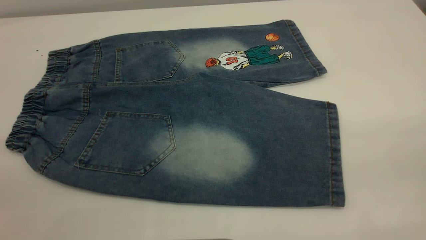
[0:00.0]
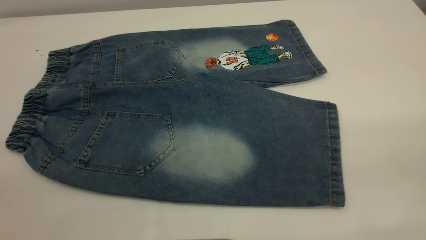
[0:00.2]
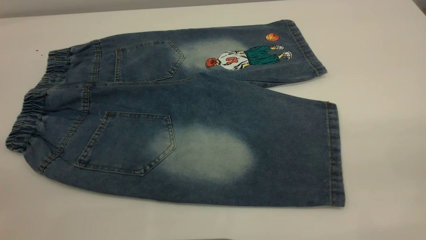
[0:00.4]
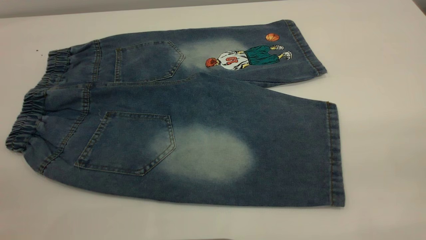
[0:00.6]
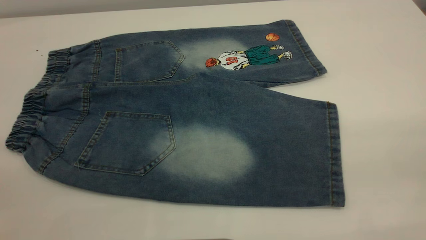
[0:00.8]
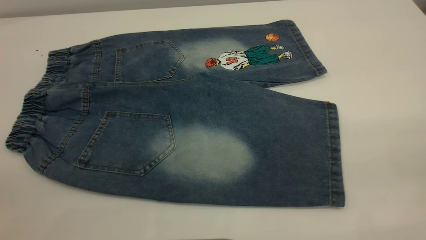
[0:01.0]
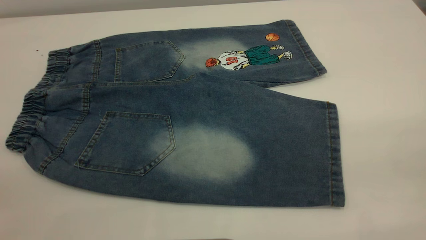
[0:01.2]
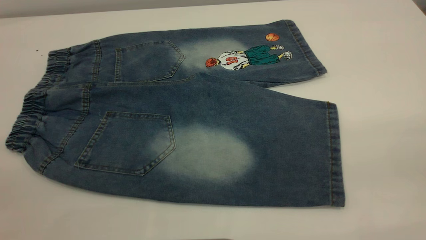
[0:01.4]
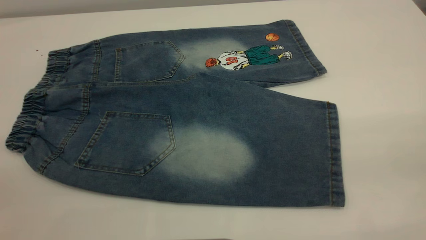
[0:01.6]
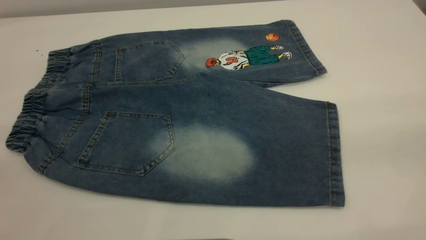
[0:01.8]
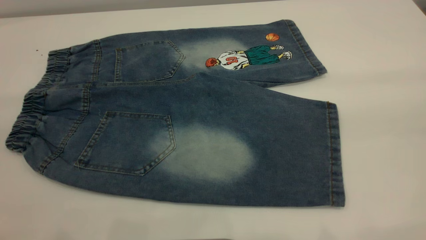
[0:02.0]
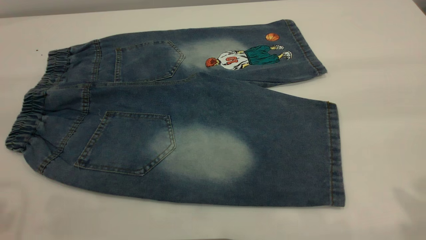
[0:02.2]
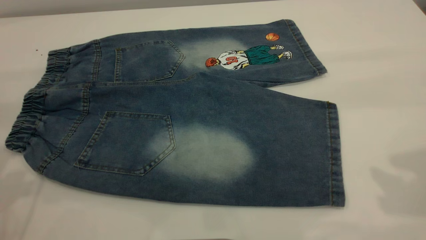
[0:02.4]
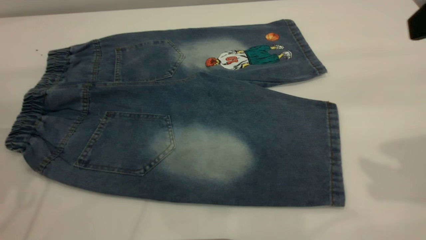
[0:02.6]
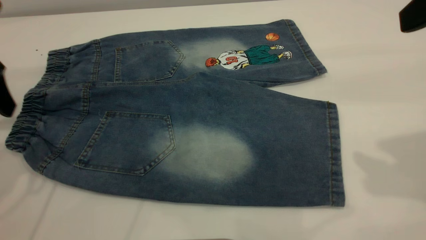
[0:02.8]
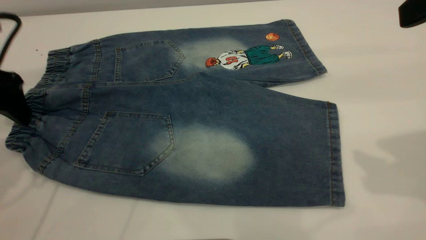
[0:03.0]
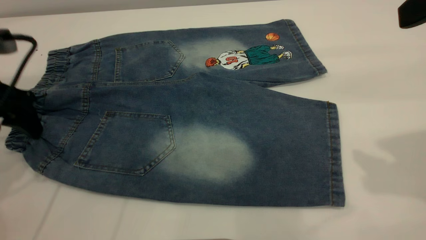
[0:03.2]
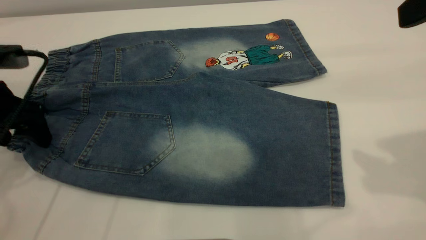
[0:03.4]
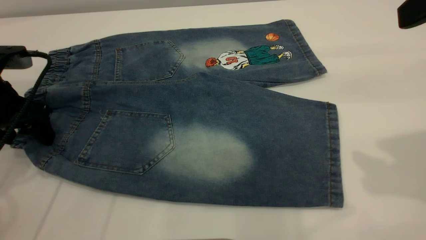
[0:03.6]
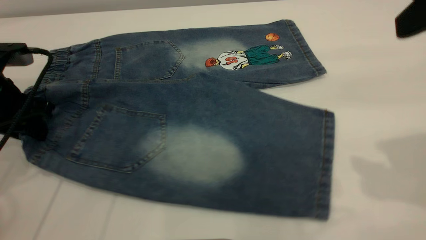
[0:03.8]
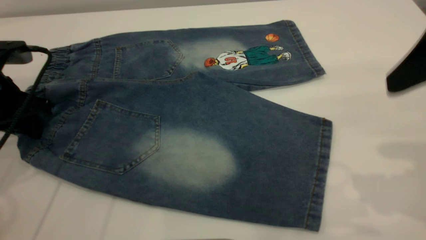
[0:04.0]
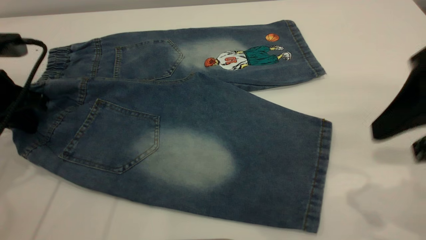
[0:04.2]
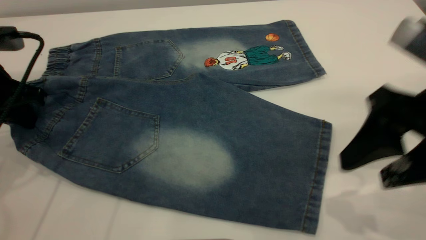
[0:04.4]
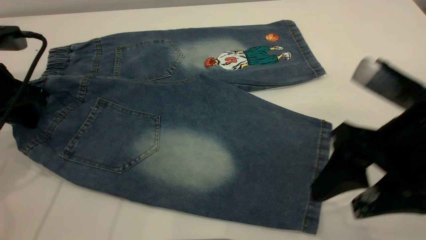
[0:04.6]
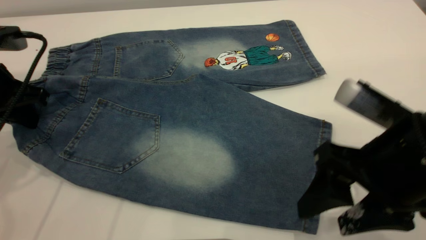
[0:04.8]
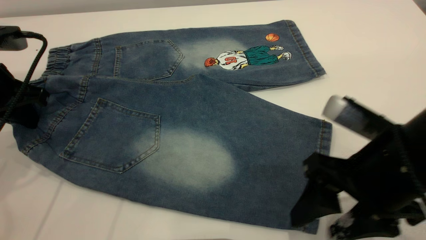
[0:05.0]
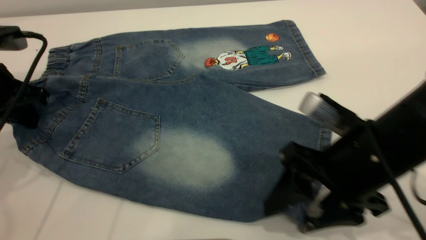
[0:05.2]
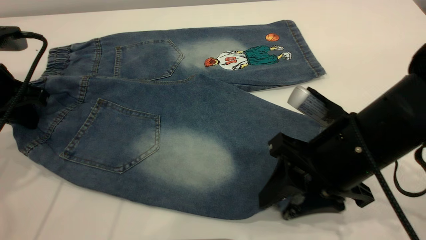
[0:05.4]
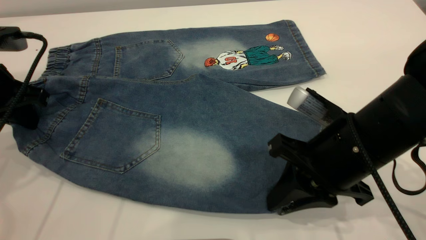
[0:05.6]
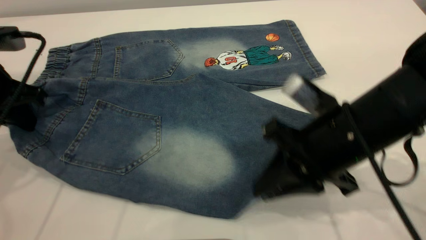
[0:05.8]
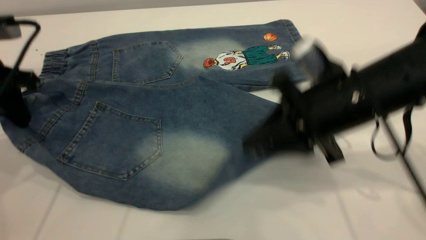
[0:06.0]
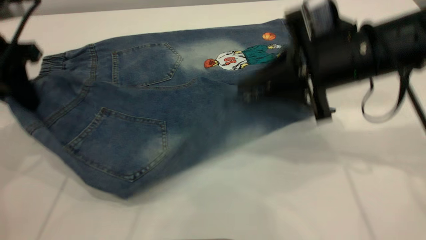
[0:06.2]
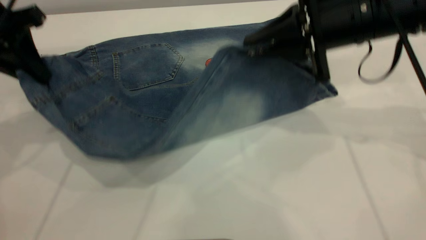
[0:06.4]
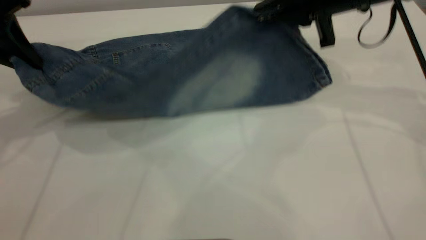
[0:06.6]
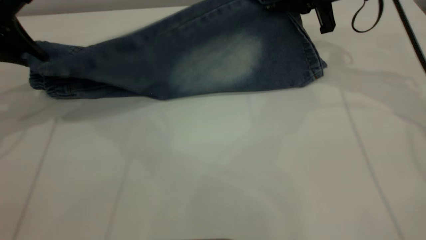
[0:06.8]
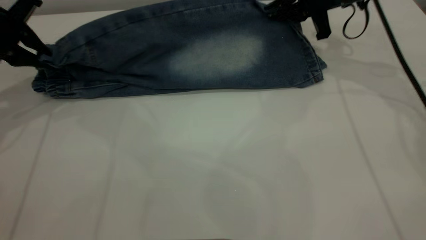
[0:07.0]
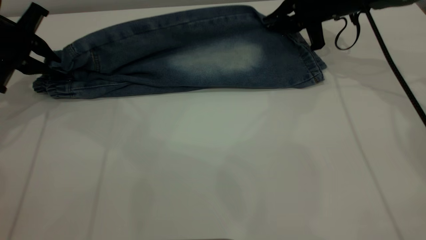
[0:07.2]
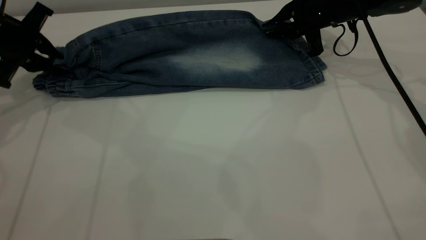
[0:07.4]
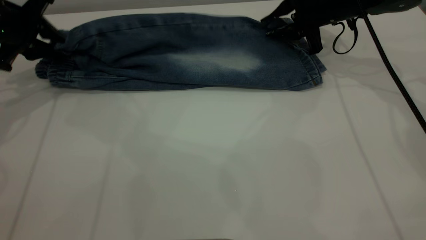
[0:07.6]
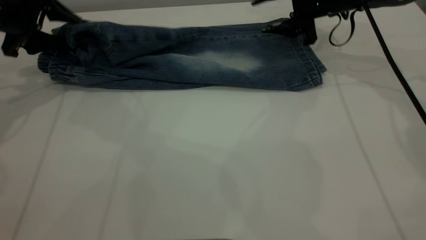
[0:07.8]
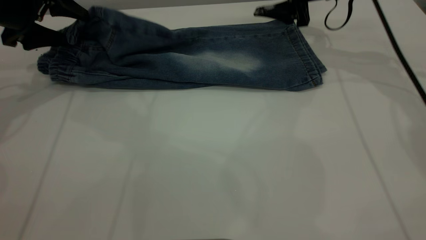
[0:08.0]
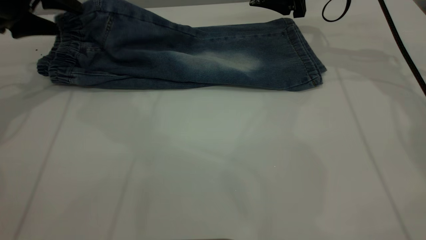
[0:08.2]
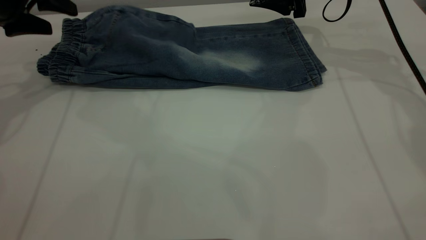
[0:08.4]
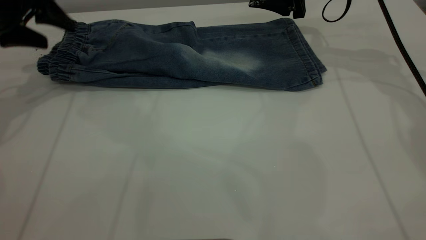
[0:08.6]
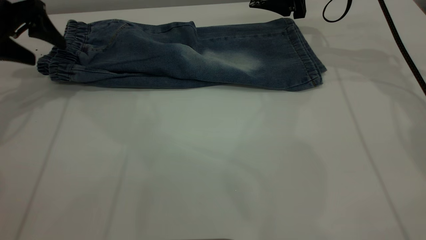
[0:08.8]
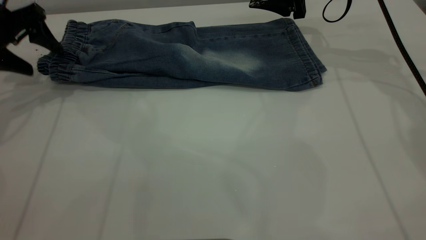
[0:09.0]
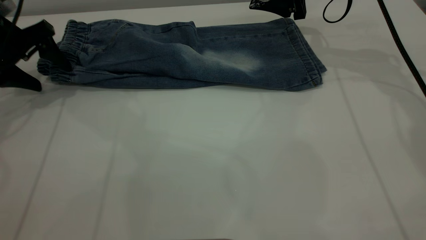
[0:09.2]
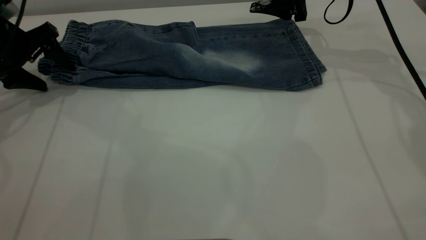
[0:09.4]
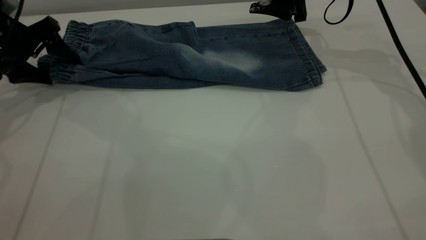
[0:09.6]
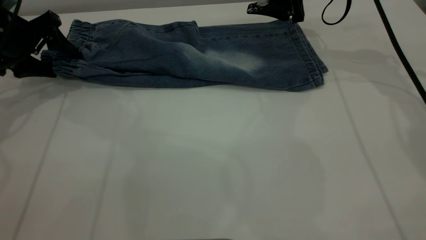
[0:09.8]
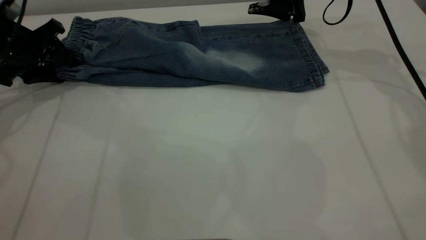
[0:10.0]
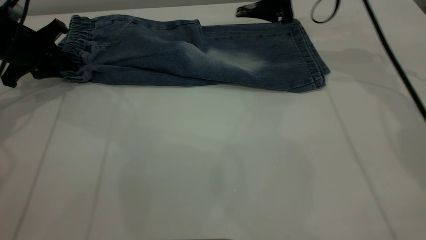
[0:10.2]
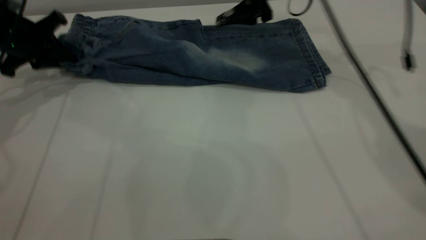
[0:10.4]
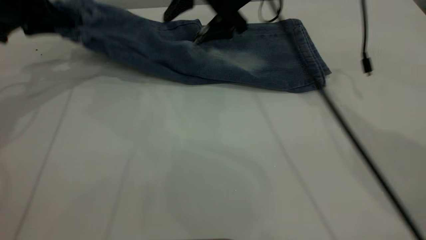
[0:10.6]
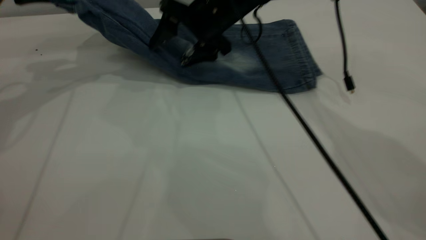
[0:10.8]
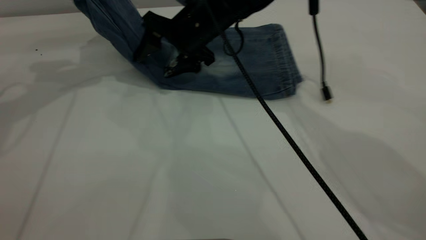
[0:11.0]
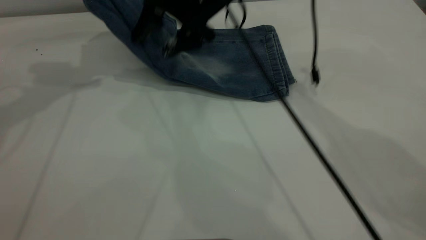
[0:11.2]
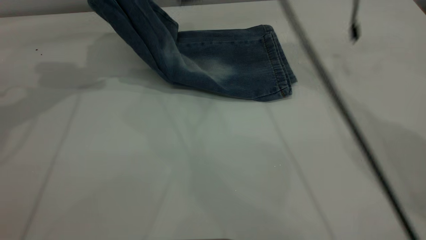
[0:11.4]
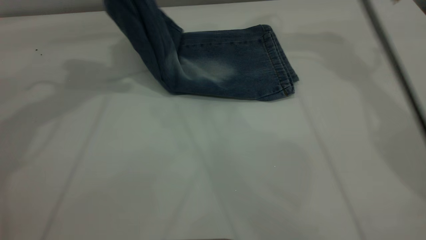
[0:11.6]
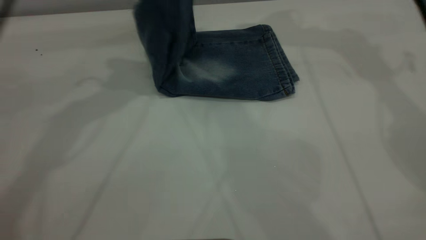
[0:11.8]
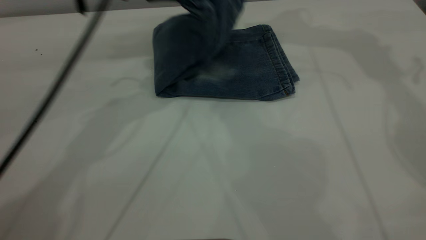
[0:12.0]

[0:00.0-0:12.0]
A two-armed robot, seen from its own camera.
Step, 0:00.0 to 0:08.6: Fold the bottom of the pants upward.
0:00.0 to 0:01.6: Both grippers stay put.
0:01.6 to 0:03.0: The right gripper moves forward, approximately 20 cm, while the left gripper is displaced forward and downward by about 35 cm.
0:03.0 to 0:04.4: The right gripper goes approximately 10 cm downward, while the left gripper closes its fingers.
0:04.4 to 0:06.0: The right gripper moves forward and to the left, about 10 cm, and closes.
0:06.0 to 0:07.6: The right gripper moves forward, approximately 20 cm, and opens its fingers; the left gripper is displaced forward by about 10 cm, and opens its fingers.
0:07.6 to 0:09.0: The left gripper opens. Meanwhile the right gripper opens up.
0:09.0 to 0:10.4: The left gripper closes up. Meanwhile the right gripper shifts about 10 cm to the left.
0:10.4 to 0:12.0: The left gripper heads to the right, covering about 20 cm; the right gripper travels upward by roughly 20 cm.

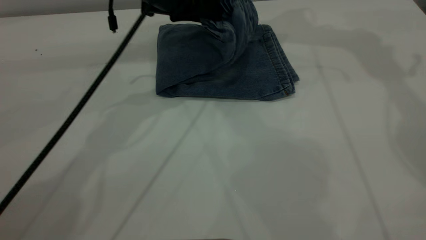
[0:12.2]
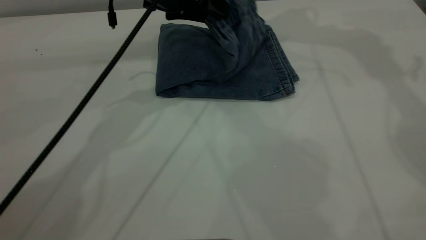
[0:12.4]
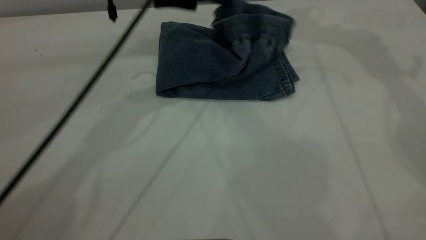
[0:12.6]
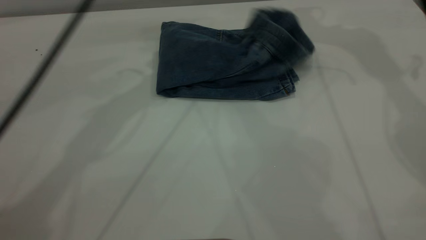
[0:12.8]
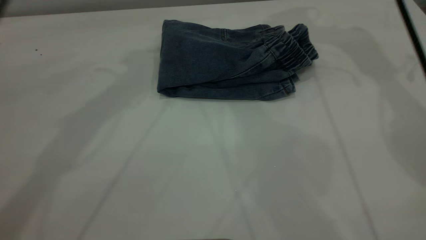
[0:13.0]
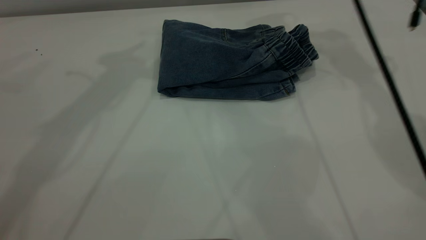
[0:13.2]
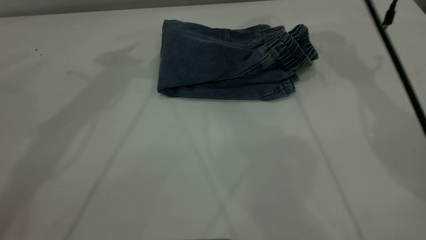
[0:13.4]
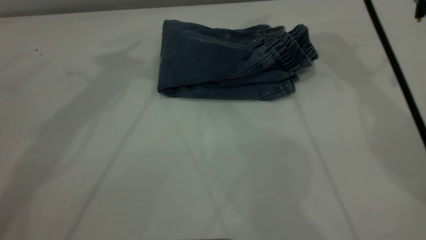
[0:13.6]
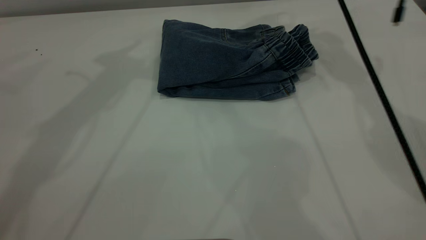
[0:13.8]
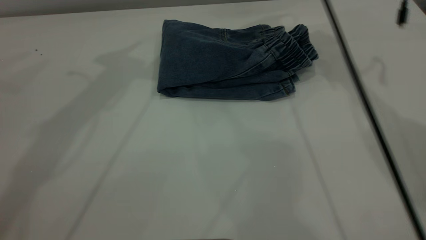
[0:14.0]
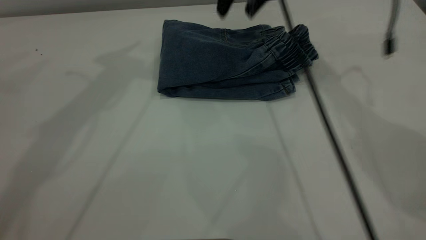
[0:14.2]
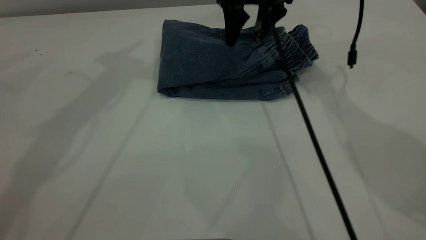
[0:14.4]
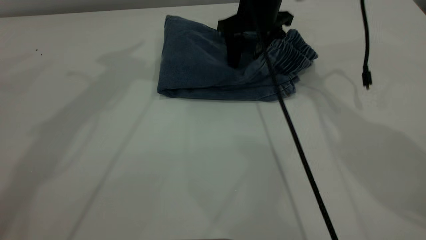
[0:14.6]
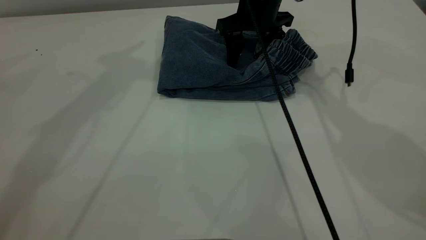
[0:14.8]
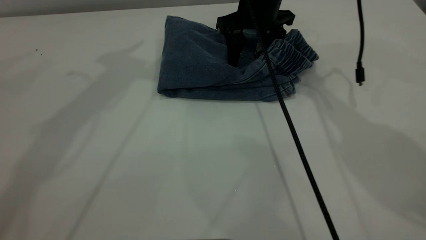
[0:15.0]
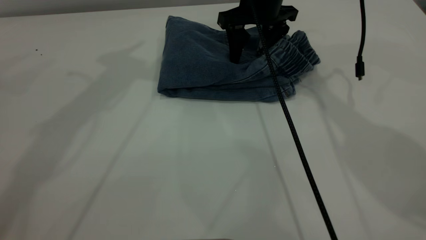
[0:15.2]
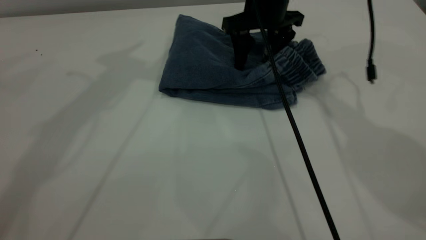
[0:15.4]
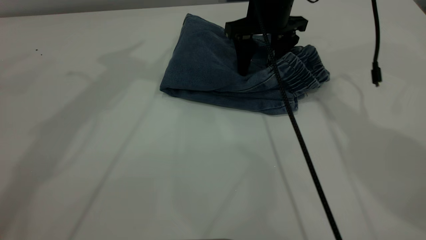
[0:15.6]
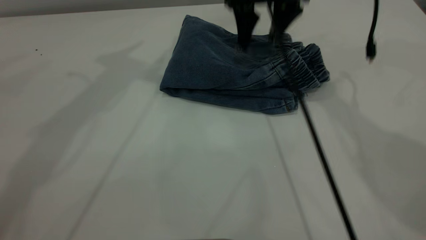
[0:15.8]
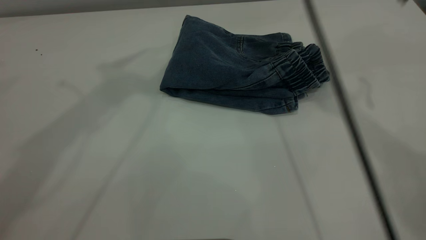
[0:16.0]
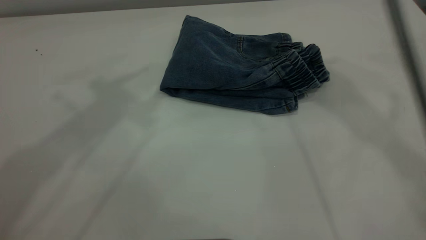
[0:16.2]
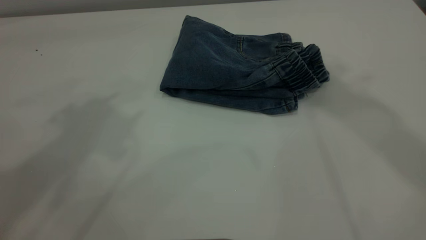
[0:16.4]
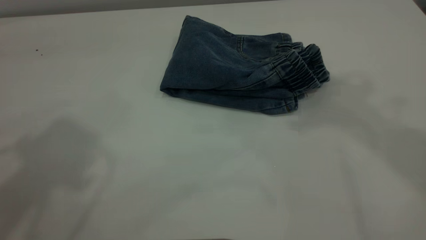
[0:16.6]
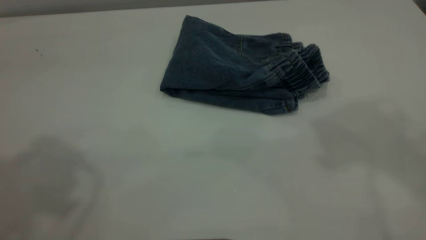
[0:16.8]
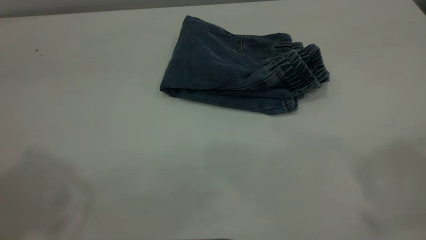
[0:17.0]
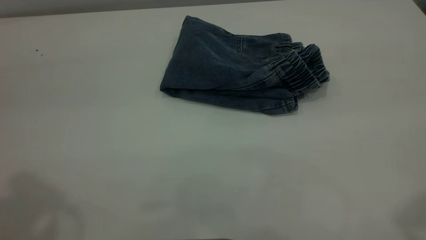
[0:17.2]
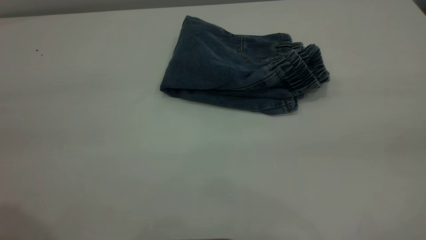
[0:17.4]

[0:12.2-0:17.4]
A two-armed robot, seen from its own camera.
0:12.2 to 0:14.0: The left gripper heads upward and to the left, covering about 20 cm, and opens up. Meanwhile the right gripper is displaced downward and to the left by roughly 15 cm.
0:14.0 to 0:15.6: The right gripper is displaced downward and backward by about 10 cm.
0:15.6 to 0:17.4: The right gripper heads backward and upward, covering roughly 40 cm, while the left gripper goes approximately 30 cm backward.
